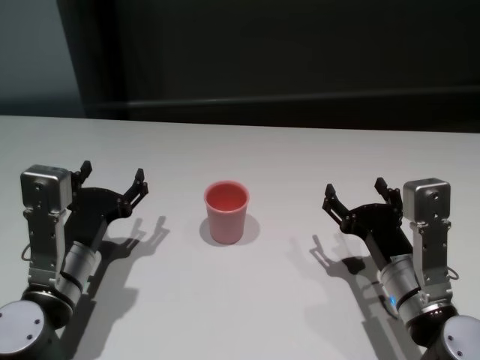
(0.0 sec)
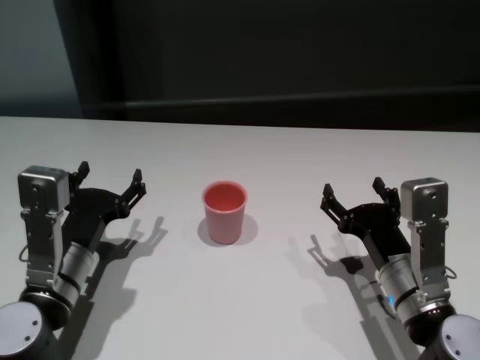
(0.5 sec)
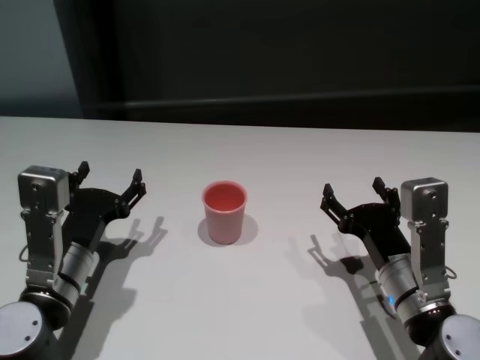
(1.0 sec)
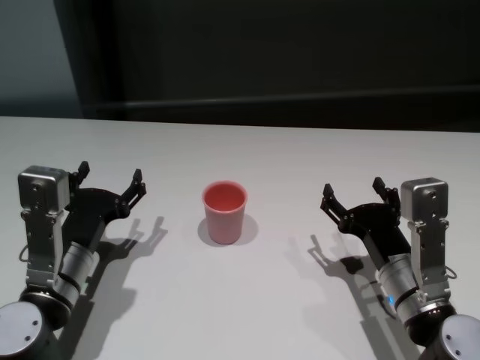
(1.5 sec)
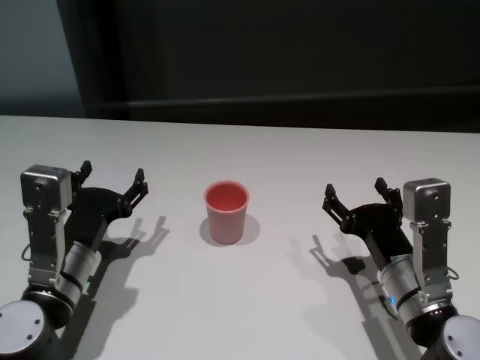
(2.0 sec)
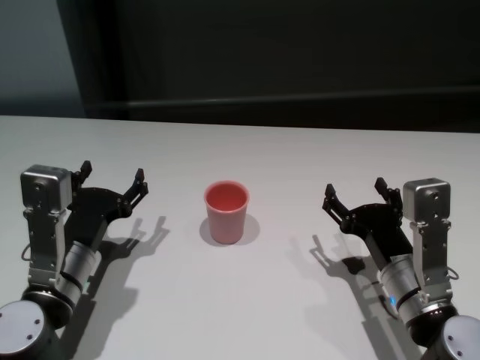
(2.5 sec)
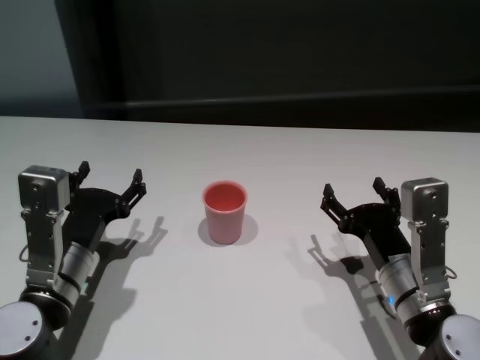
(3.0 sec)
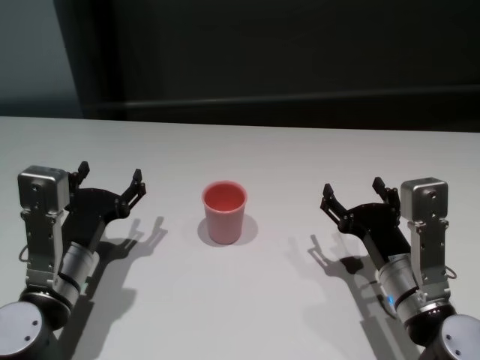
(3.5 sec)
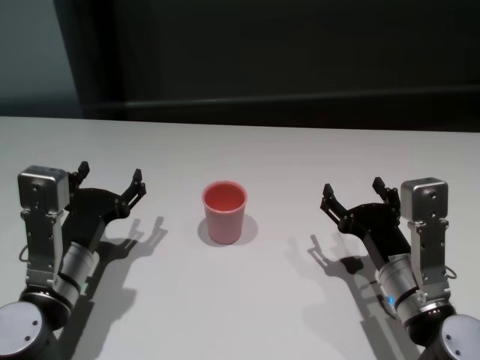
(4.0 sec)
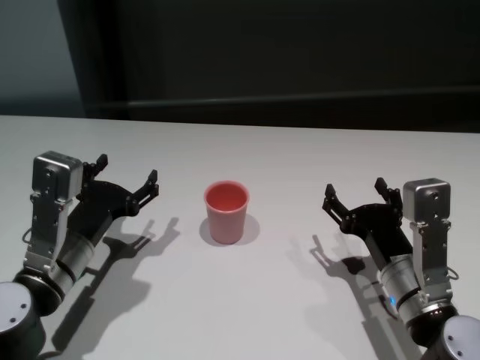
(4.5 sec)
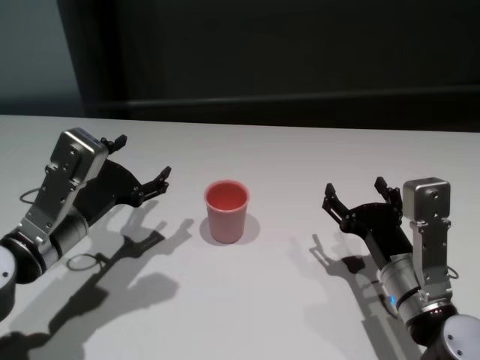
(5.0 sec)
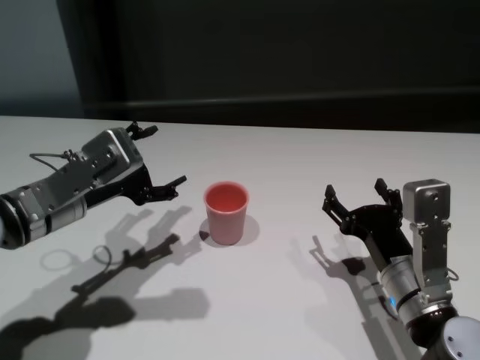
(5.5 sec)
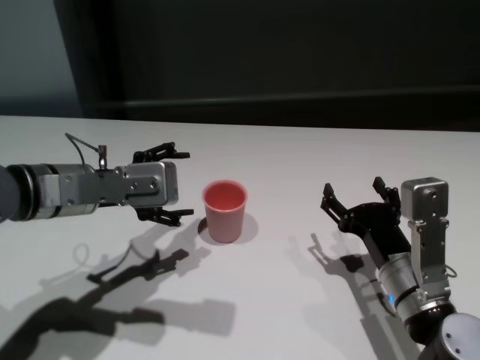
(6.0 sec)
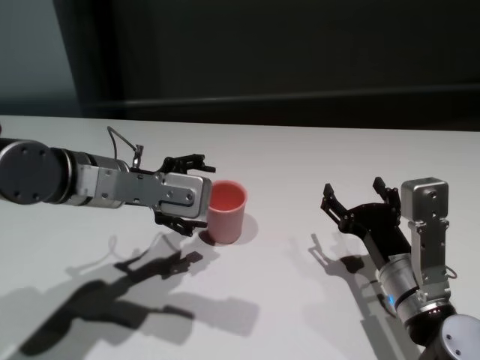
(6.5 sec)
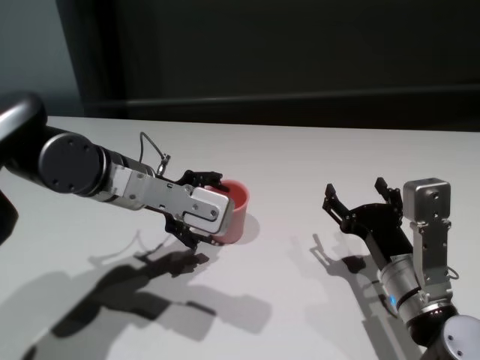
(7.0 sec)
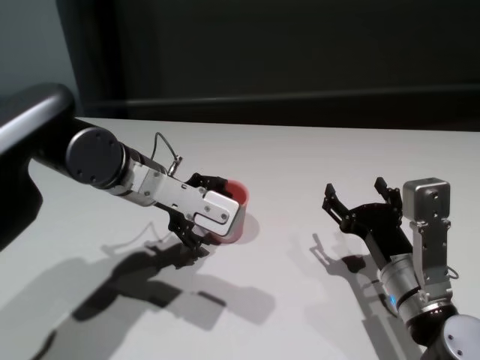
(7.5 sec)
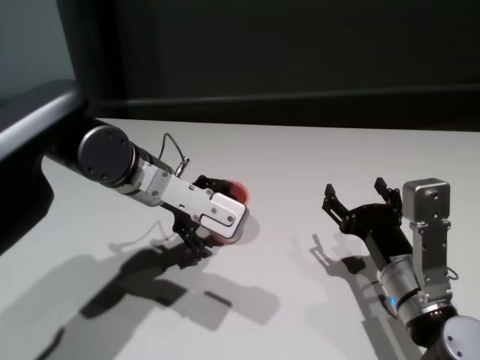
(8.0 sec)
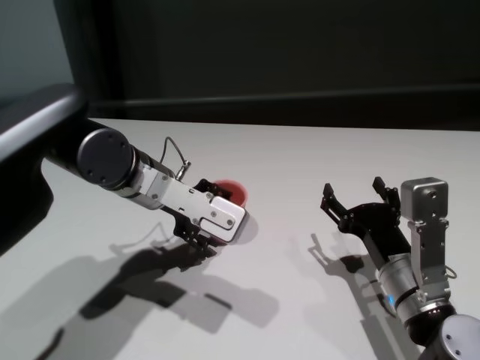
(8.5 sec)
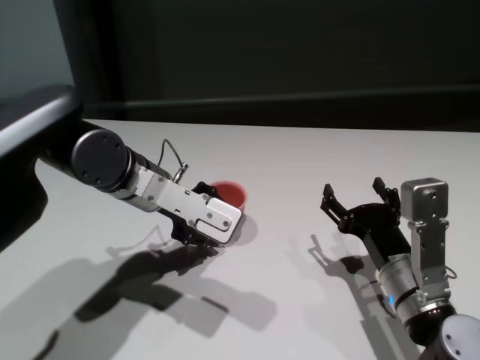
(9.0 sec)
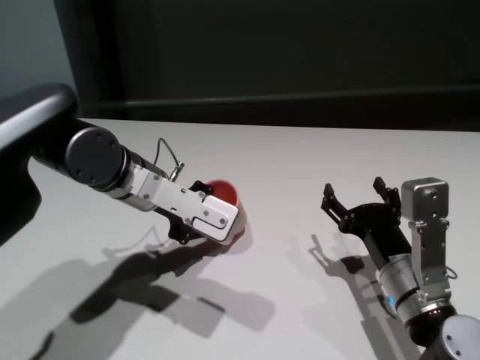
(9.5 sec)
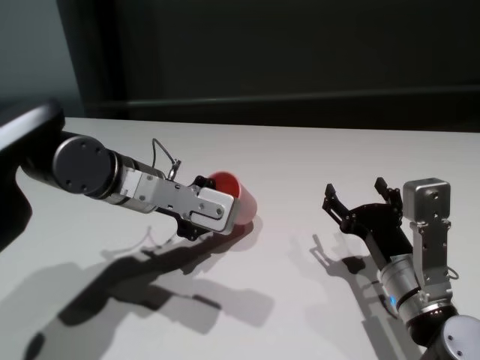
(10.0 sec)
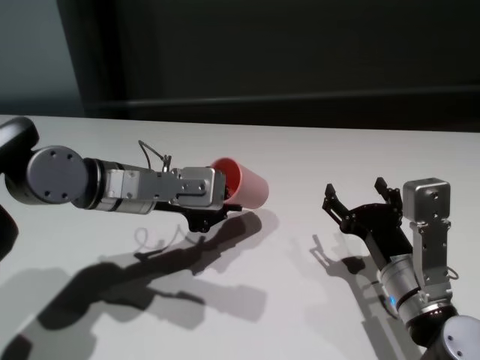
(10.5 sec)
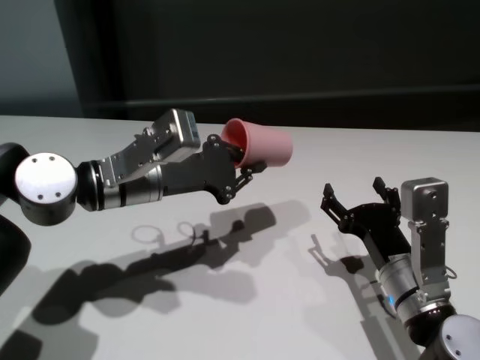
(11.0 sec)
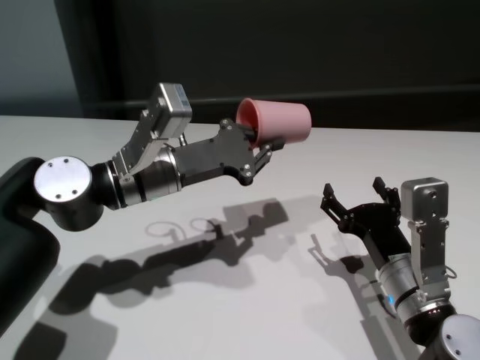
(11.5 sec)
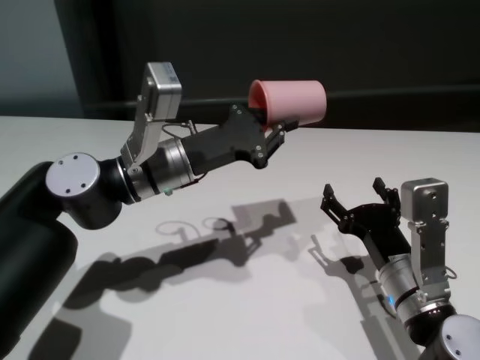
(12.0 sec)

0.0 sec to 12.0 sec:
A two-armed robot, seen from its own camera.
Task of the whole recording: On the white table pick up the cup with one hand and transfer it to the other hand before turning it over.
Step, 0.0 sec to 9.0 sec: Grasp the cup with left gripper.

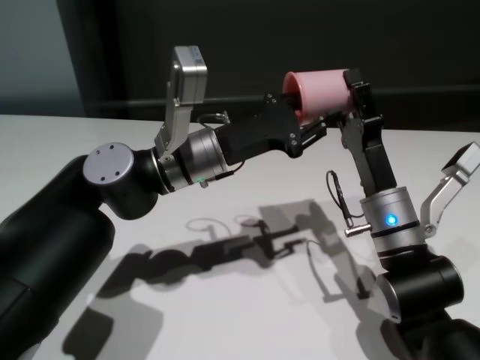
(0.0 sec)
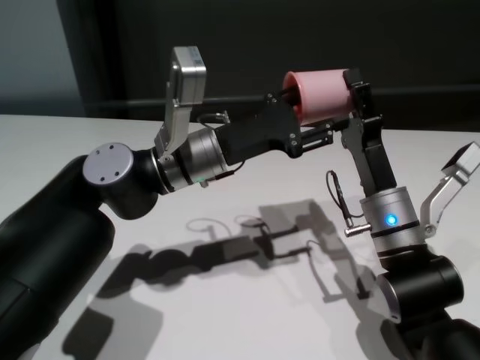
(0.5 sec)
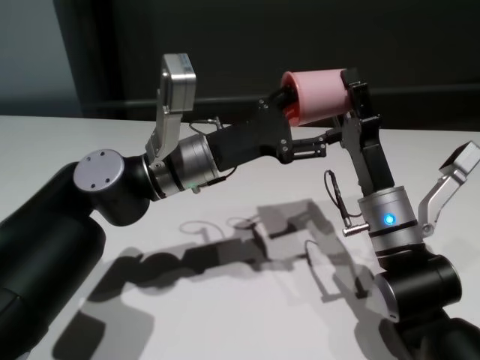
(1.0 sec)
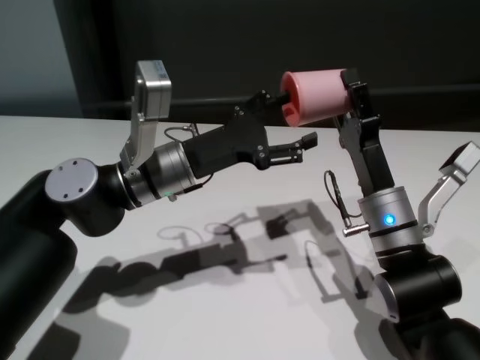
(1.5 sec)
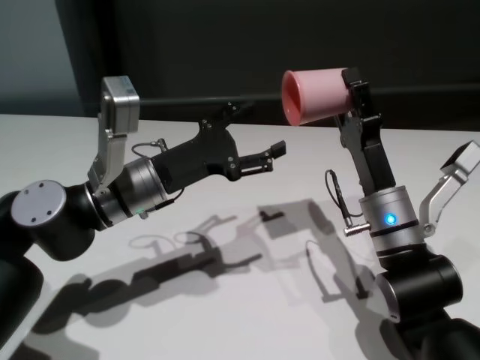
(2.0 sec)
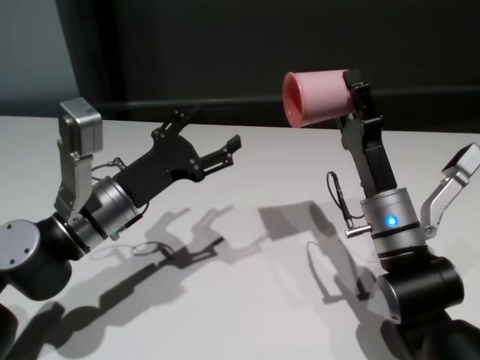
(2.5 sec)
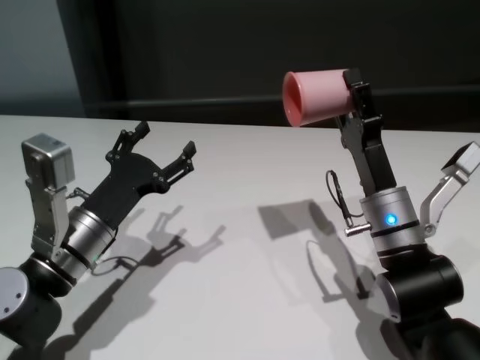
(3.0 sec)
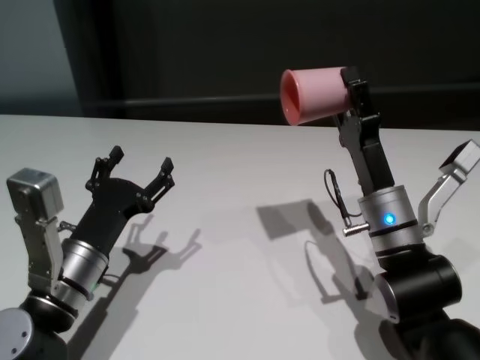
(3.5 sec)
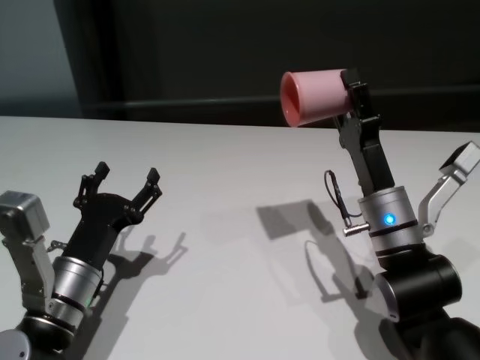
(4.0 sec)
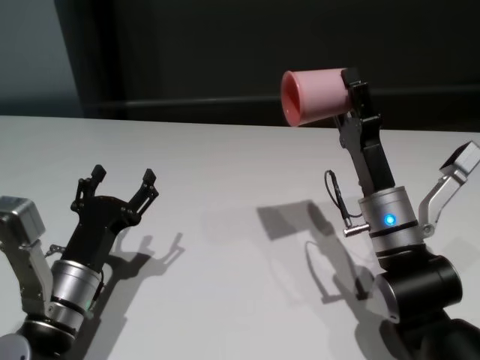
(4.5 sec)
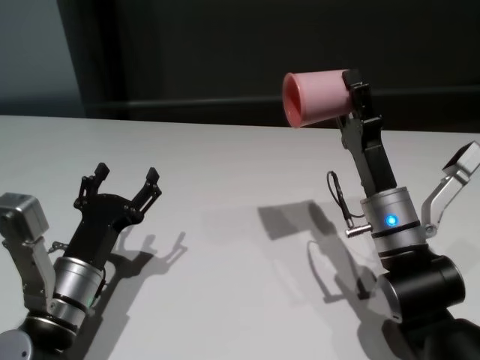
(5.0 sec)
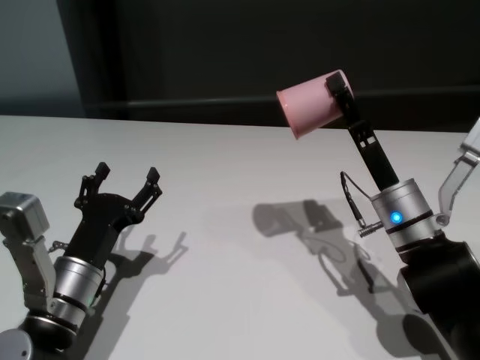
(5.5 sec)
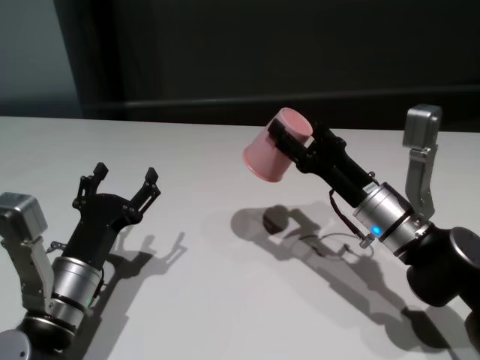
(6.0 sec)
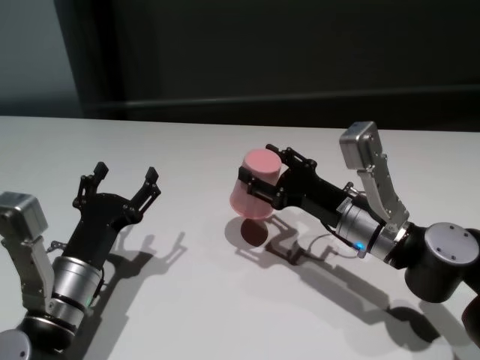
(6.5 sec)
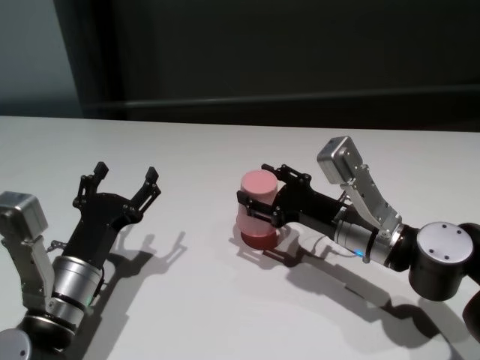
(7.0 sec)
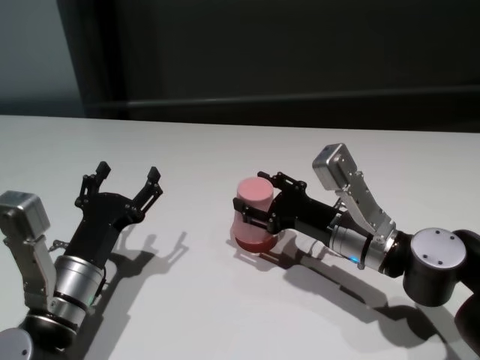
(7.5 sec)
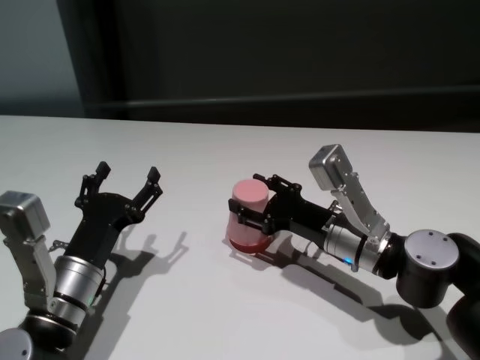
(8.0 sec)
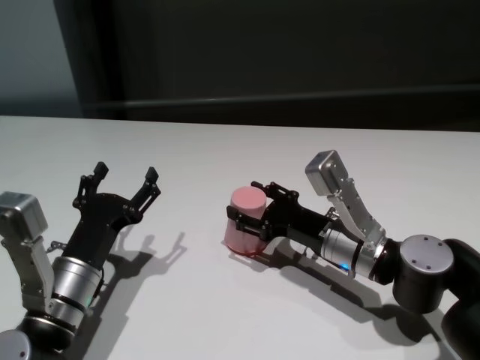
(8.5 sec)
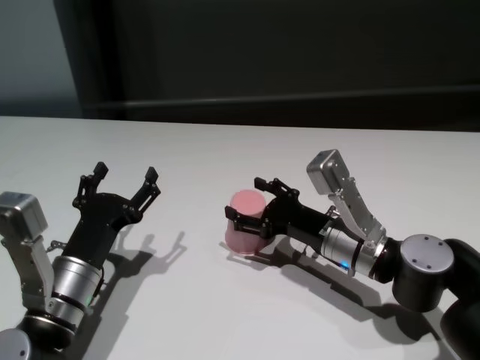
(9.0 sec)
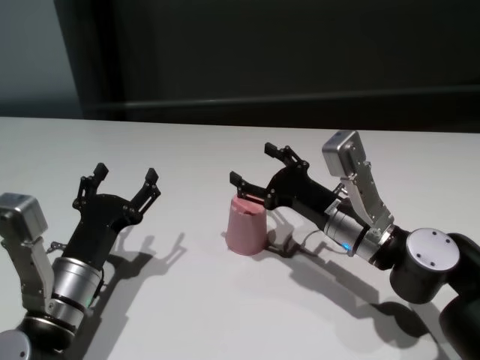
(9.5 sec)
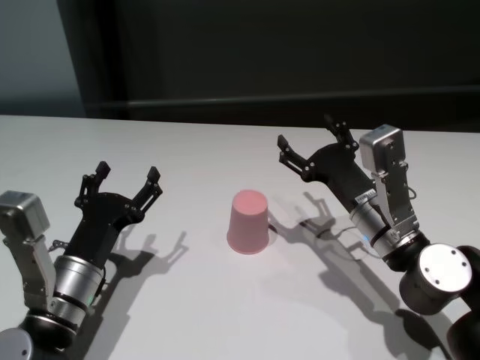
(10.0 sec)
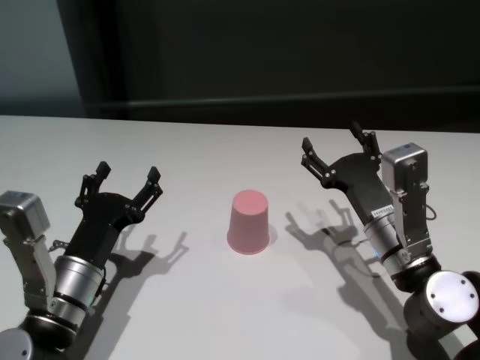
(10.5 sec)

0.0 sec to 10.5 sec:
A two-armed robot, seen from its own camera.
Task of the whole recording: On the white table pick up the cup with one hand and transfer it to the other hand before turning it over.
Step, 2.0 sec to 9.5 sec: Place the cup on the table with right gripper.

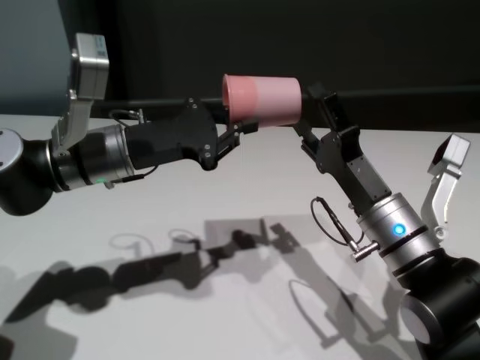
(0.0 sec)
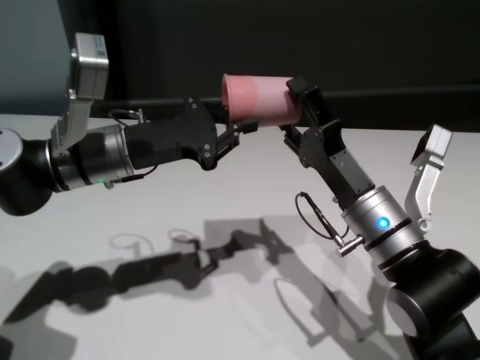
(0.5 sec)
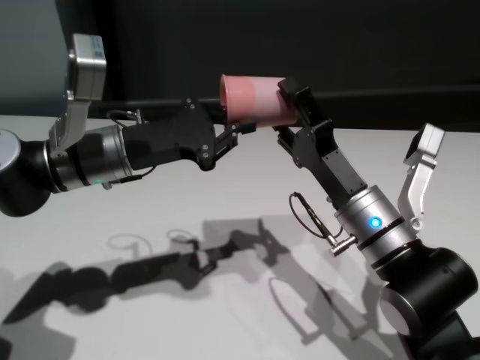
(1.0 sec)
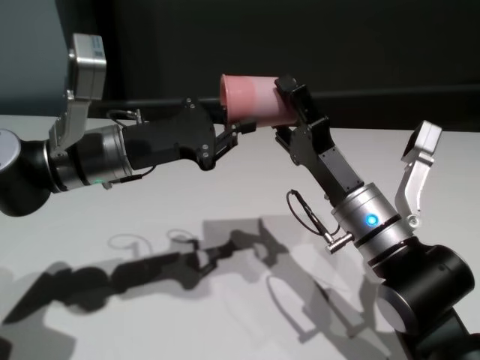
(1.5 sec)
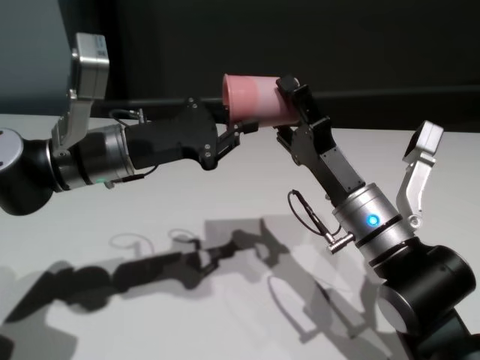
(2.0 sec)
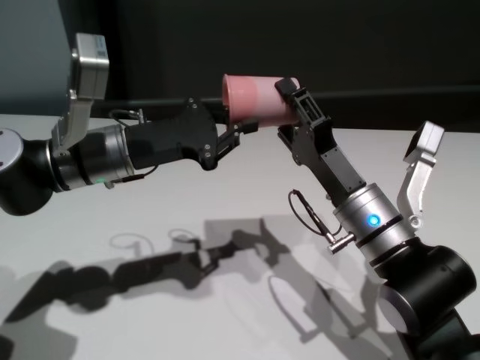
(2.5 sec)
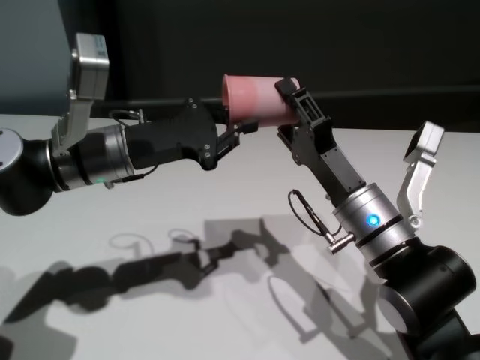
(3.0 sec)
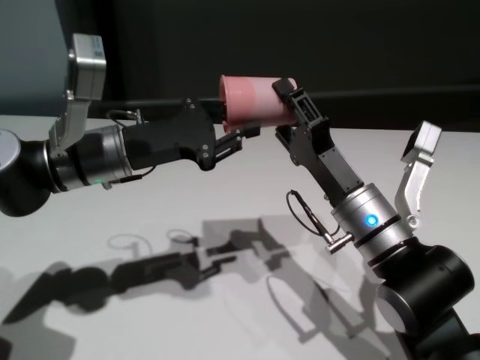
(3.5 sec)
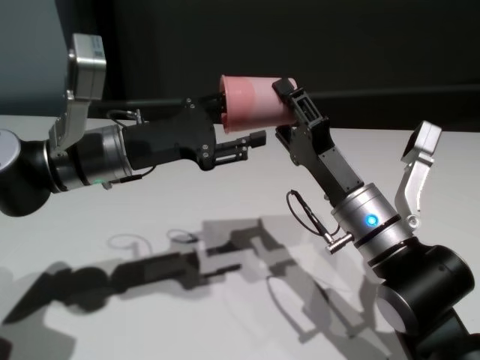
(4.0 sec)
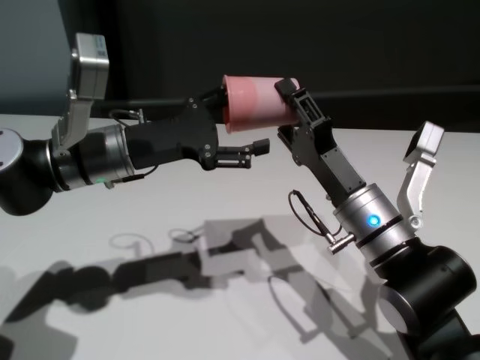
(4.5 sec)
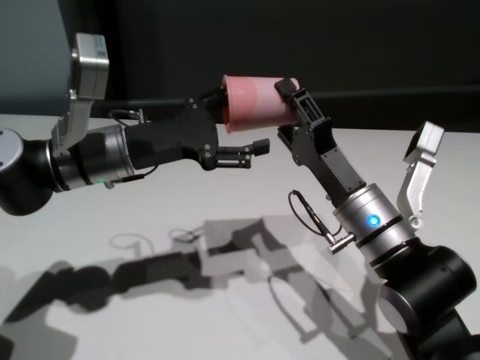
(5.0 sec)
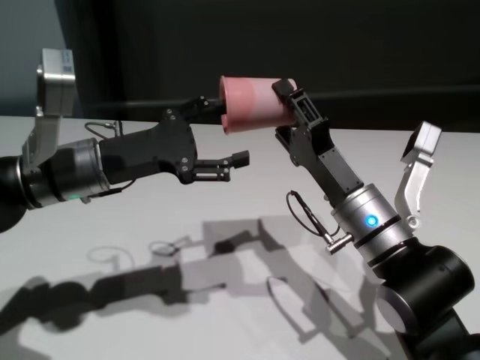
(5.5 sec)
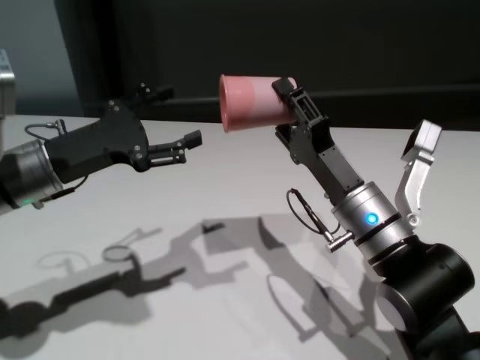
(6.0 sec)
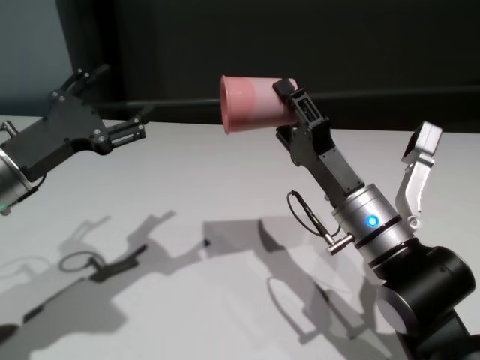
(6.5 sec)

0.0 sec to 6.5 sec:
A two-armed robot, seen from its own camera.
Task of the whole recording: On the white table pick up the cup with one hand and transfer it to the other hand before turning it over.
Step, 0.0 sec to 5.5 sec: Pass the cup to the right gripper.
